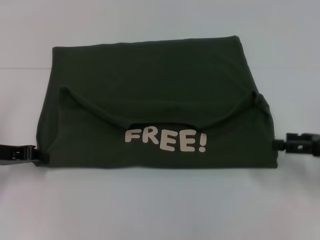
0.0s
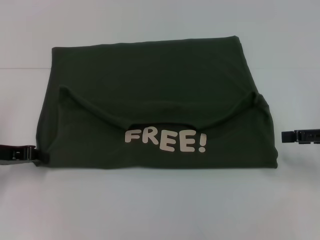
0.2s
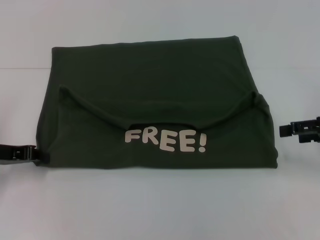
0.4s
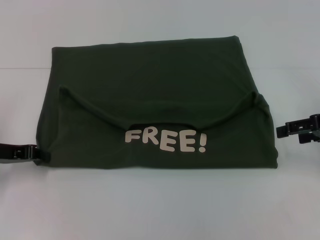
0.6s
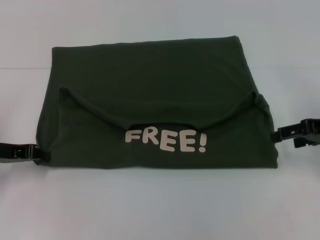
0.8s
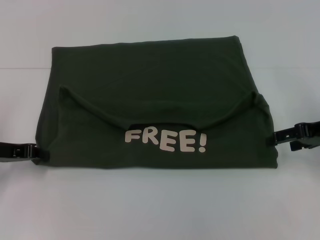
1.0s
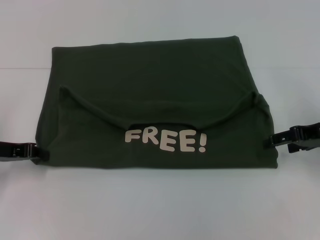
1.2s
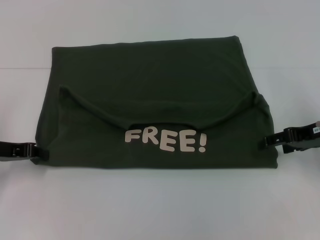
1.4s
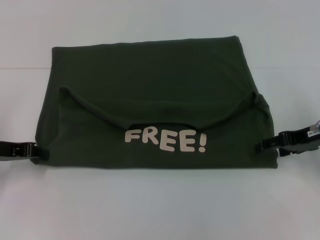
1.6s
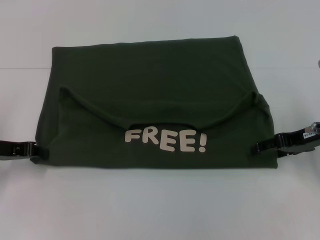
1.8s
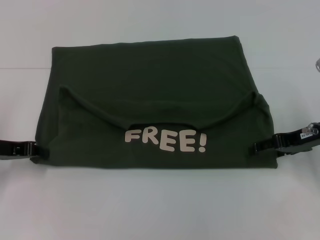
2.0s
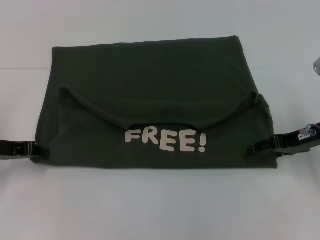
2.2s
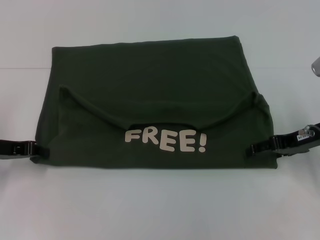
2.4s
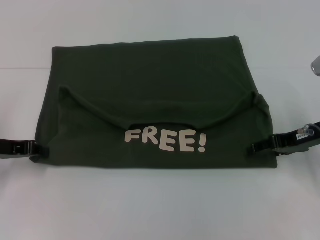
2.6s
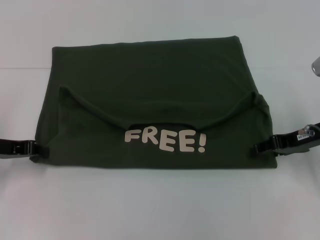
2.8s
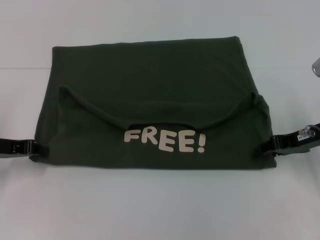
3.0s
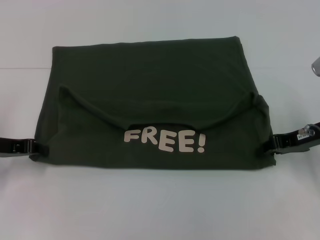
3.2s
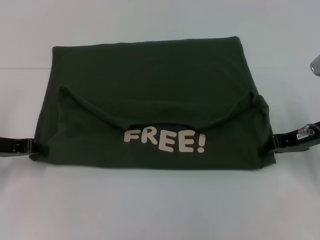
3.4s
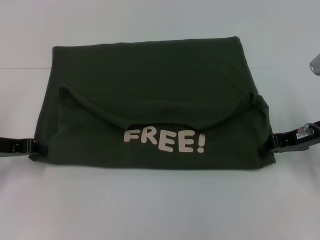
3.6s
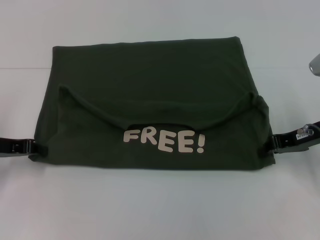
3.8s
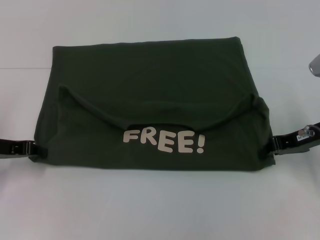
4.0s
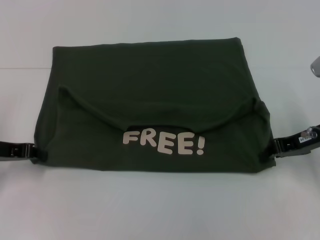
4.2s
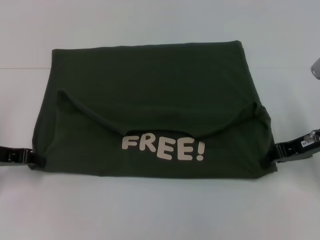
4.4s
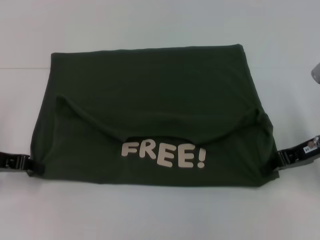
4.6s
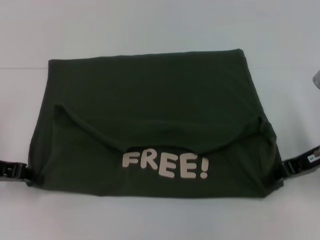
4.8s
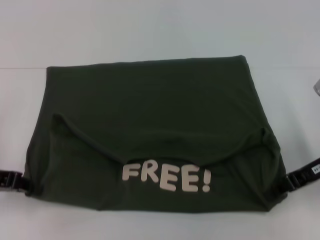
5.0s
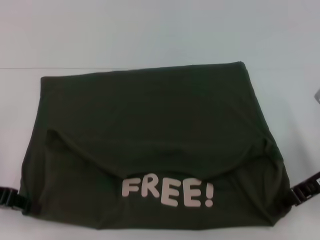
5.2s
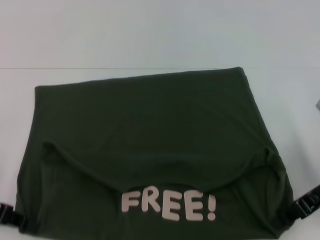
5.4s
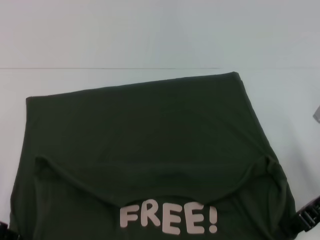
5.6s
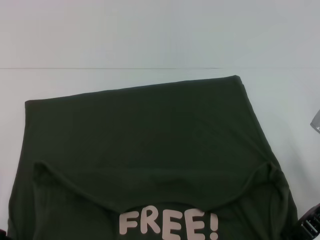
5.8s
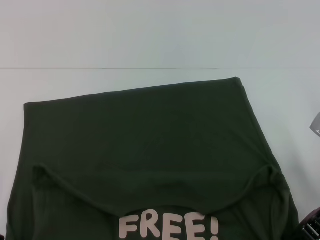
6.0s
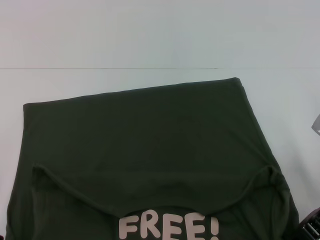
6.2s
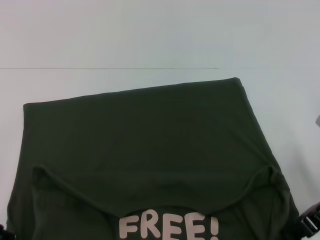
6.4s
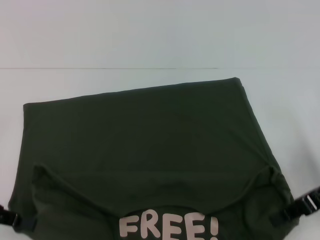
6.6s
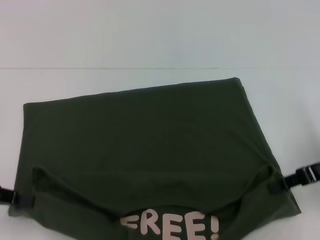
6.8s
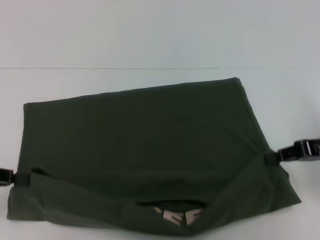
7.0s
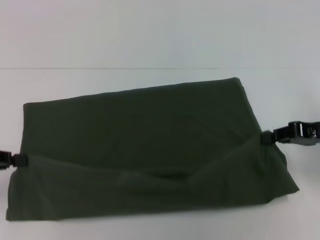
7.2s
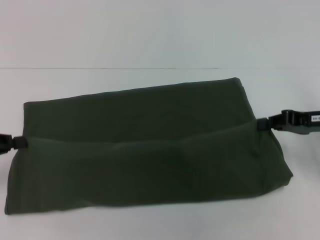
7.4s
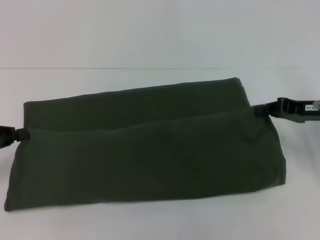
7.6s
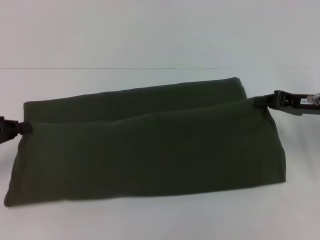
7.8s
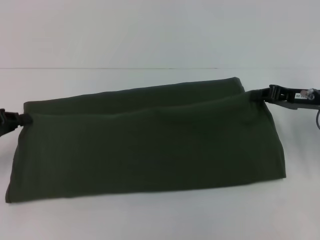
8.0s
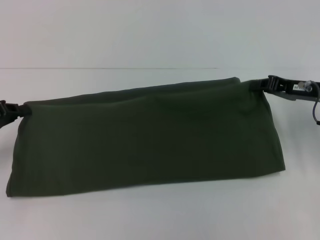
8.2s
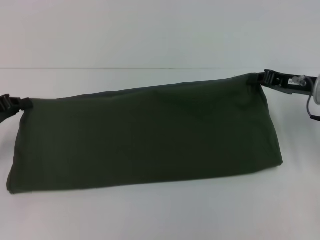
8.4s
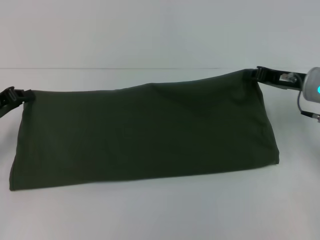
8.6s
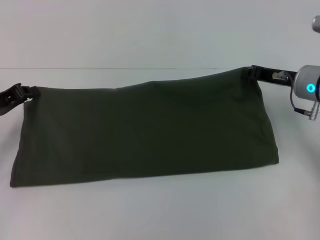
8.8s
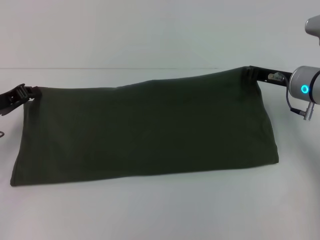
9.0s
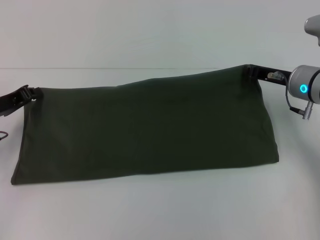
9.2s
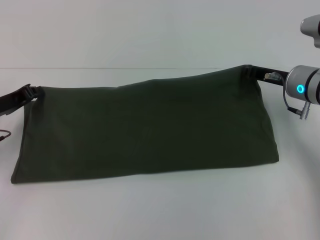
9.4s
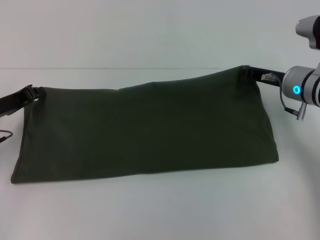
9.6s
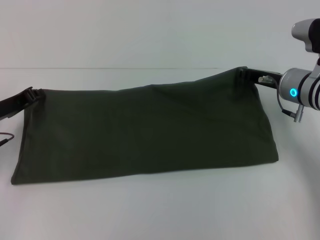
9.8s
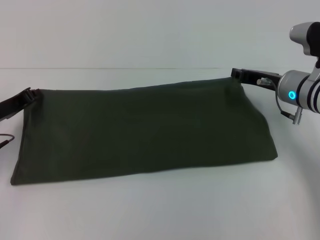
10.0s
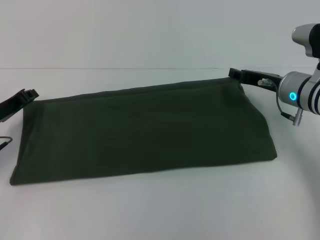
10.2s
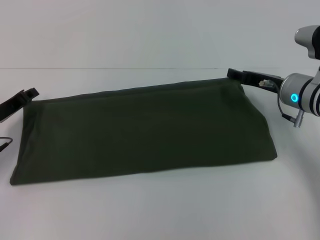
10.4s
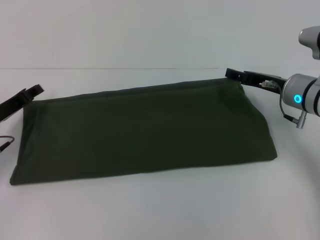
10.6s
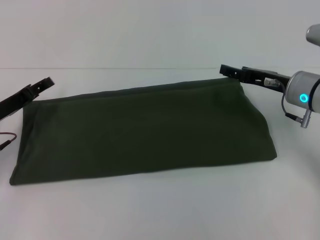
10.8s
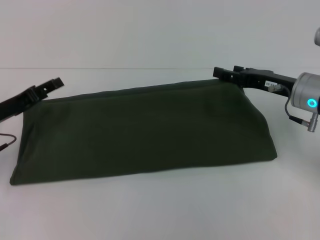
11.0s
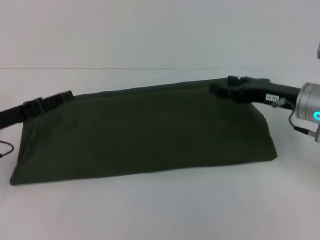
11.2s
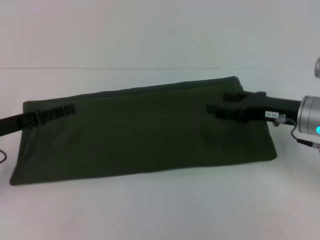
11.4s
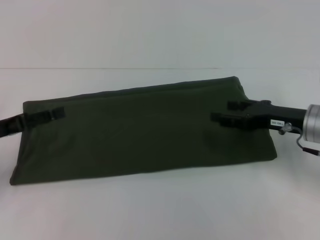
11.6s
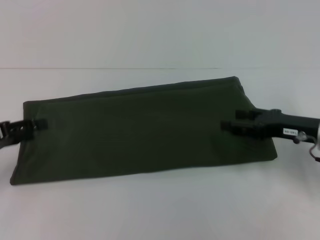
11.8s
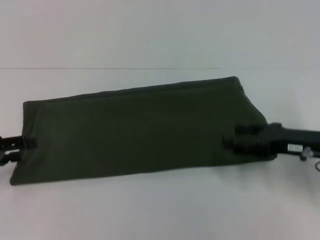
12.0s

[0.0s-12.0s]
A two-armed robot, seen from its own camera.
Step, 0.0s to 6.6s: Pull the clothes with your left hand.
Step, 0.0s to 6.6s: Pull the clothes with your right hand.
Step, 6.8s to 10.6s: Fold the clothes with your left hand.
Step, 6.8s to 10.6s: Fold the clothes with your right hand.
0.0s to 1.6s: The right gripper shifts some 5 cm forward.
1.6s to 3.0s: There are only small adjustments of the grippers.
3.0s to 4.4s: The right gripper closes its fingers.
4.4s to 6.0s: The two grippers go about 5 cm backward.
6.0s to 7.6s: The right gripper heads forward, covering roughly 5 cm, while the left gripper shifts by about 5 cm.
7.6s to 9.0s: The right gripper heads to the left and forward, covering roughly 10 cm; the left gripper shifts approximately 5 cm forward.
9.0s to 10.4s: The right gripper opens up.
10.4s to 12.0s: The left gripper shifts roughly 10 cm backward and to the left, and opens up. Meanwhile the right gripper moves backward, roughly 10 cm.

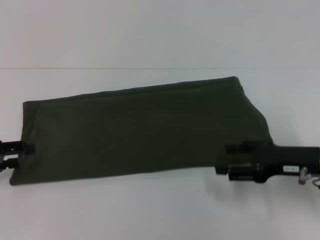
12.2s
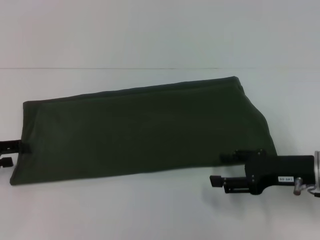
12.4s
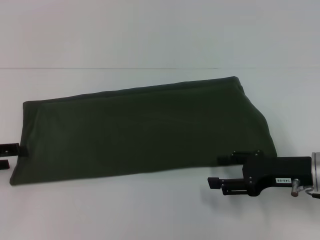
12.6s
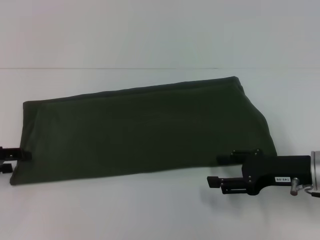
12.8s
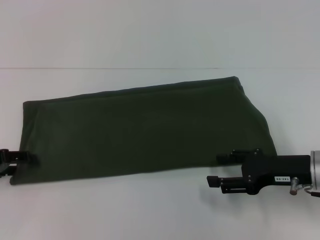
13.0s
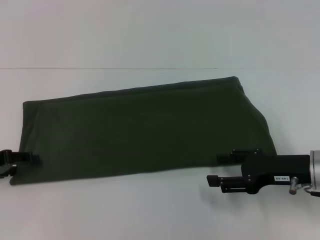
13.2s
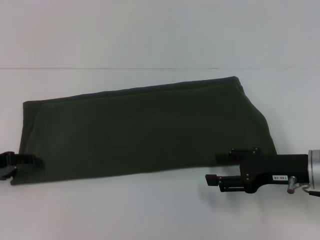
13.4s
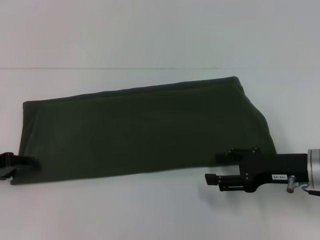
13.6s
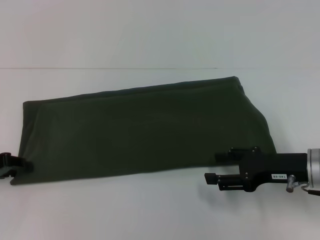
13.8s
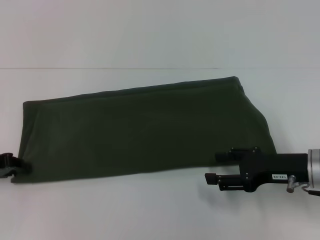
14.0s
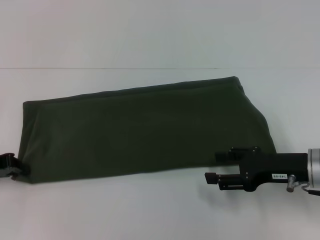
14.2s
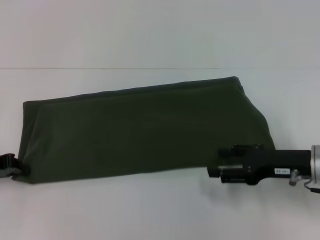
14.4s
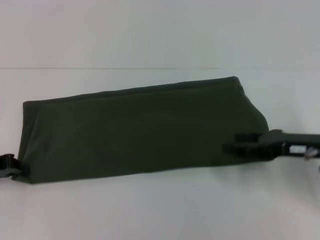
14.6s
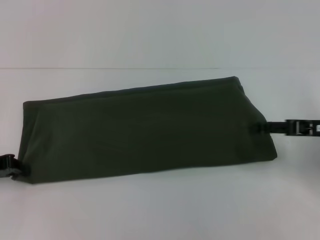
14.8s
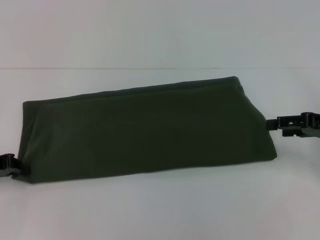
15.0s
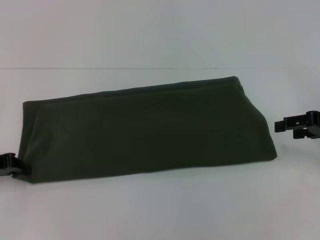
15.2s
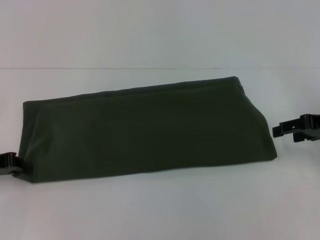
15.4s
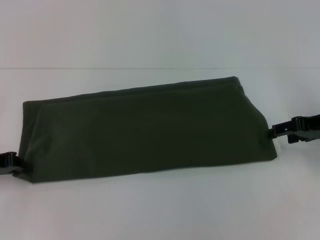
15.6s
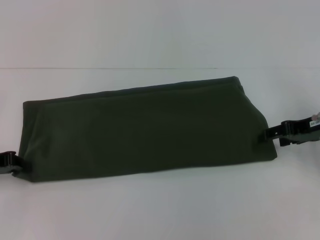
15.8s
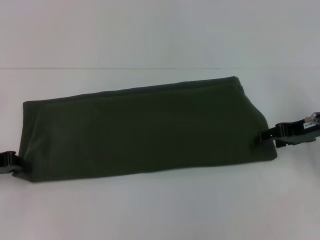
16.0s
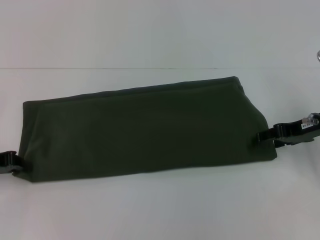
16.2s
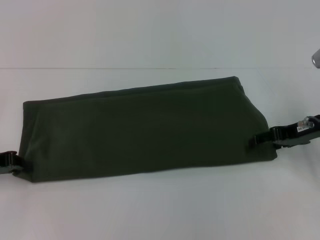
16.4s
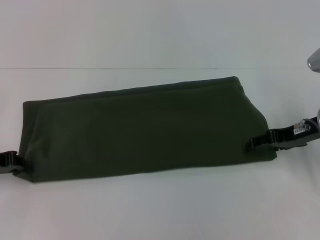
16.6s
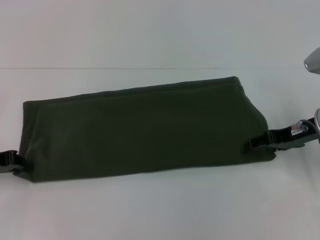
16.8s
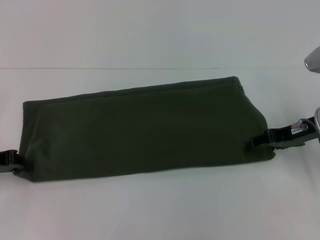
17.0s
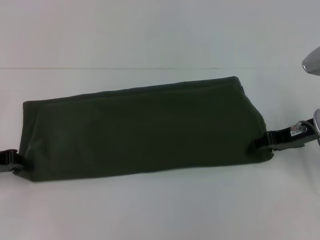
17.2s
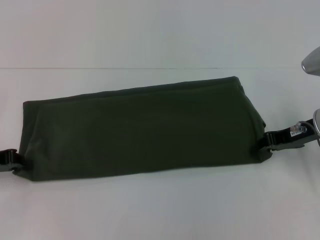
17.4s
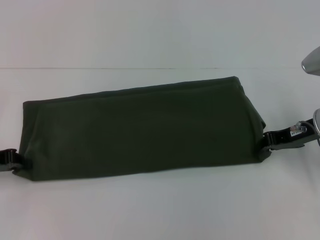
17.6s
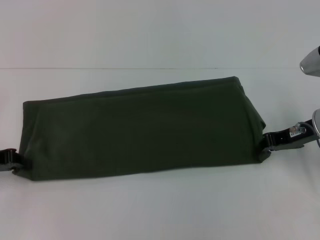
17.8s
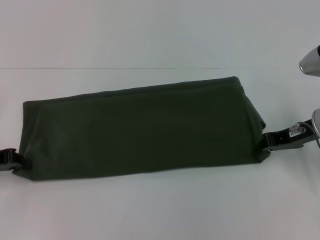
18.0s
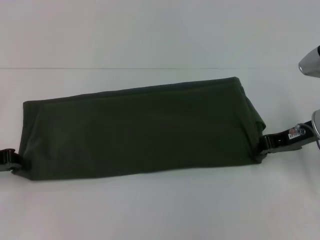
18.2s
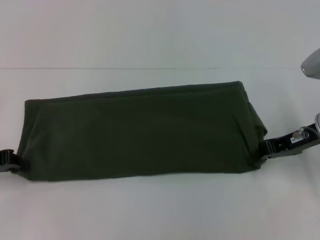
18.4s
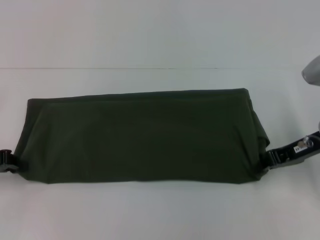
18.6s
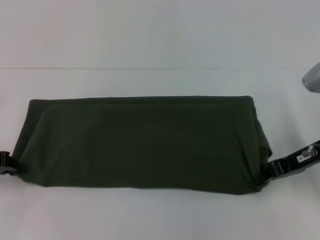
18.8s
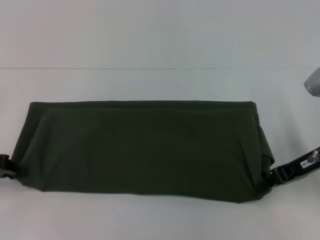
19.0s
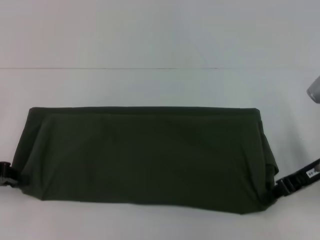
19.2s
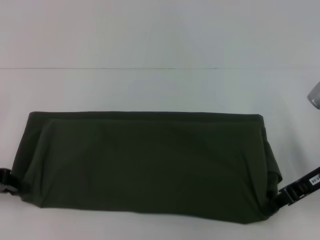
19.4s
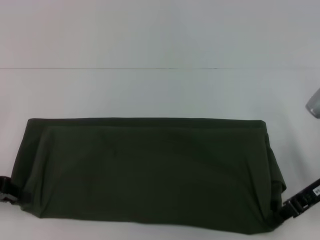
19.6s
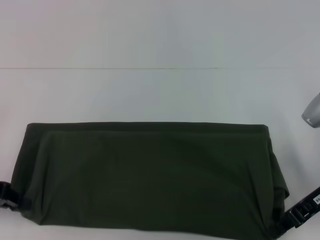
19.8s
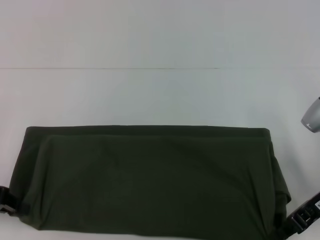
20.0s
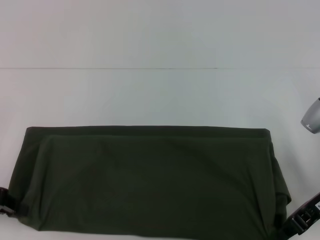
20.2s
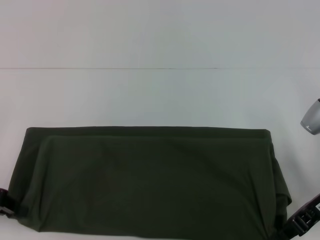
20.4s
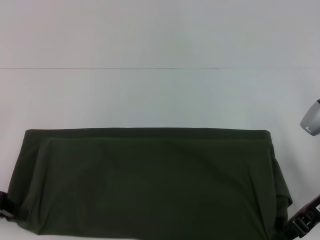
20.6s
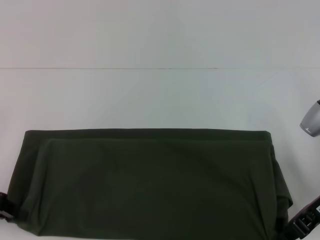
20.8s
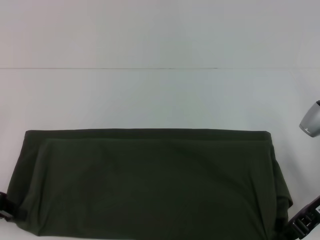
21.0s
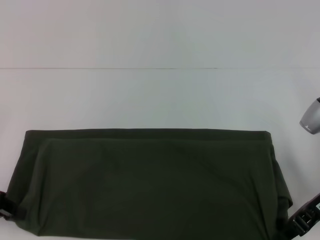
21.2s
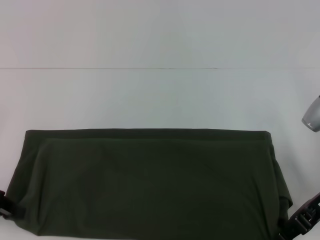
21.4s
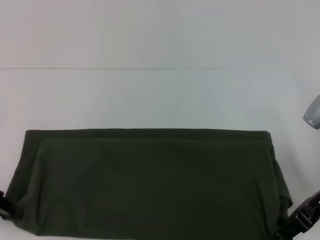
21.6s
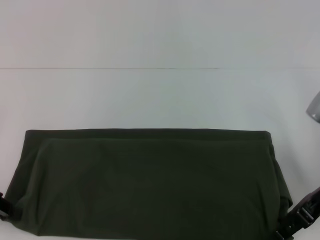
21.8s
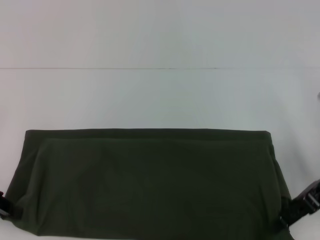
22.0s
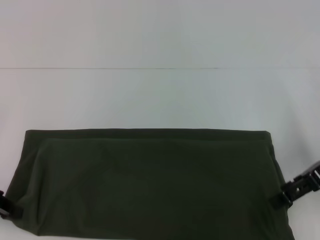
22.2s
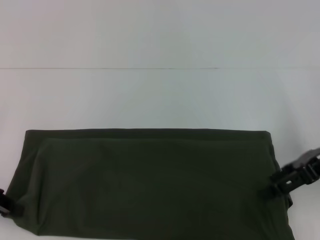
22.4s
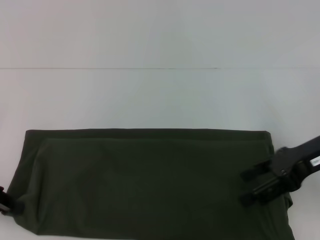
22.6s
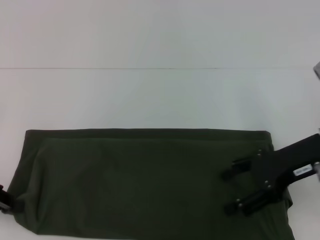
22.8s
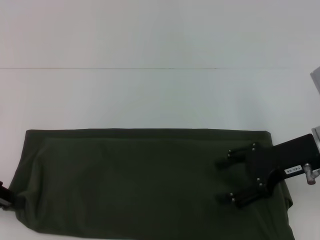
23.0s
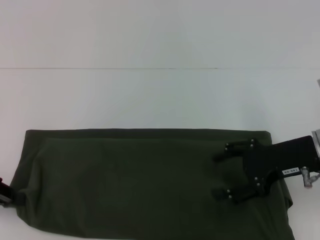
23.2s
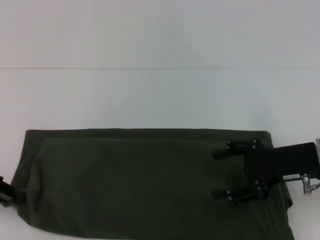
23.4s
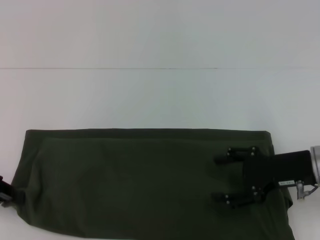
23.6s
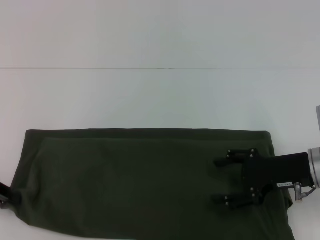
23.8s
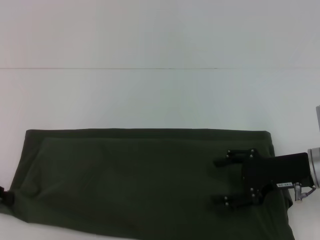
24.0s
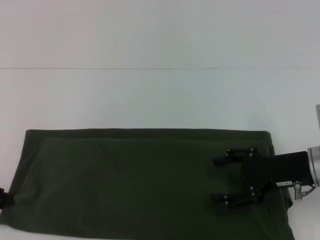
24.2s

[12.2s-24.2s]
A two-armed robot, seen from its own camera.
Step, 12.2s to 22.0s: Pull the clothes with your left hand.
Step, 12.2s to 22.0s: Pull the clothes with your right hand.
12.2s to 13.8s: The grippers stay close to where they were, moving slightly.
13.8s to 15.2s: The right gripper moves to the right, upward and forward, roughly 10 cm. The left gripper closes.
15.2s to 16.6s: The right gripper shifts roughly 5 cm to the left.
16.6s to 18.2s: The right gripper closes.
18.2s to 19.8s: The right gripper heads backward, covering some 5 cm.
19.8s to 21.2s: Both grippers stay about where they are.
21.2s to 22.6s: The right gripper goes approximately 5 cm upward, and opens.
22.6s to 24.2s: The right gripper goes approximately 10 cm downward.
